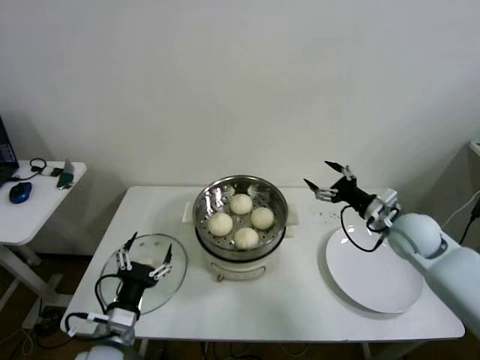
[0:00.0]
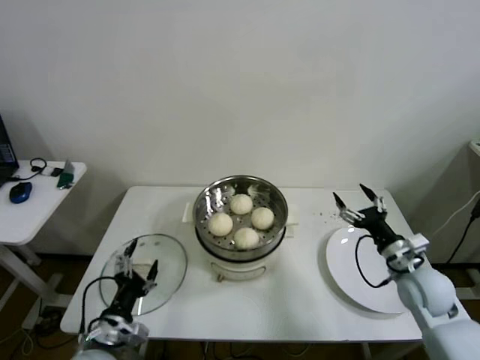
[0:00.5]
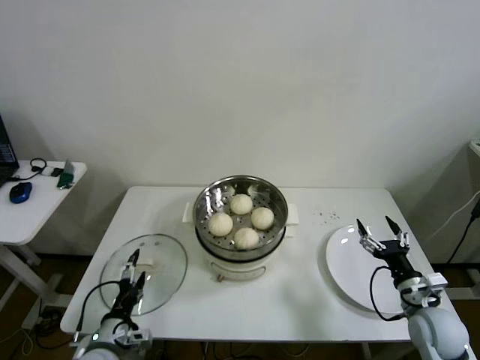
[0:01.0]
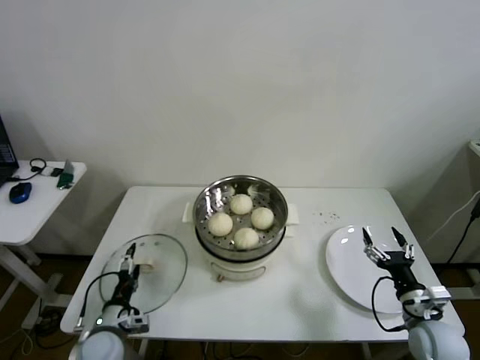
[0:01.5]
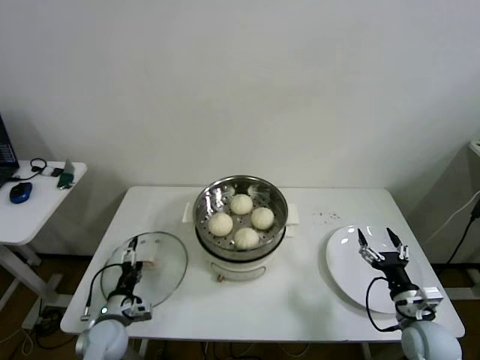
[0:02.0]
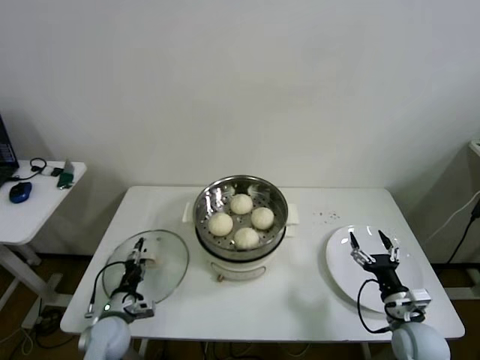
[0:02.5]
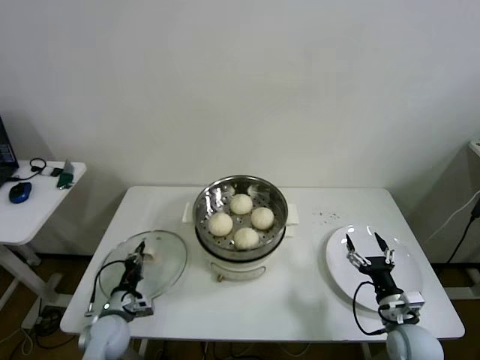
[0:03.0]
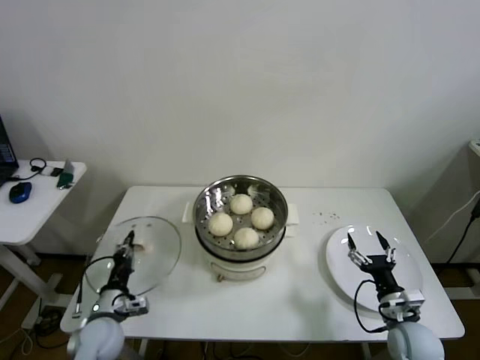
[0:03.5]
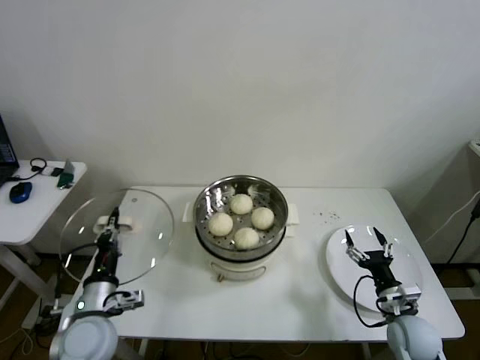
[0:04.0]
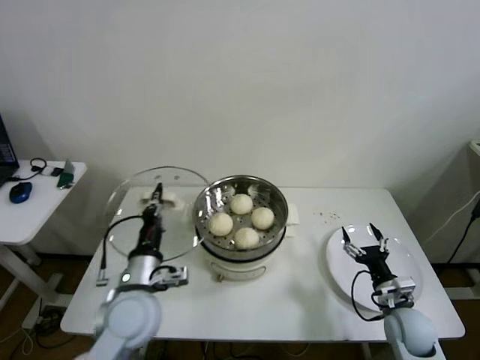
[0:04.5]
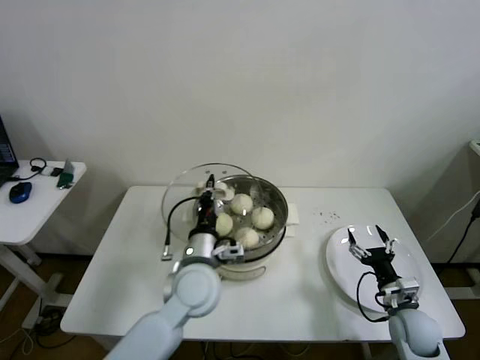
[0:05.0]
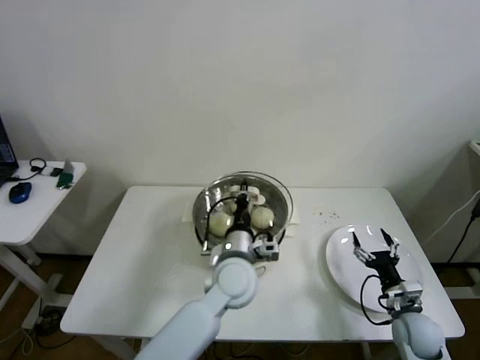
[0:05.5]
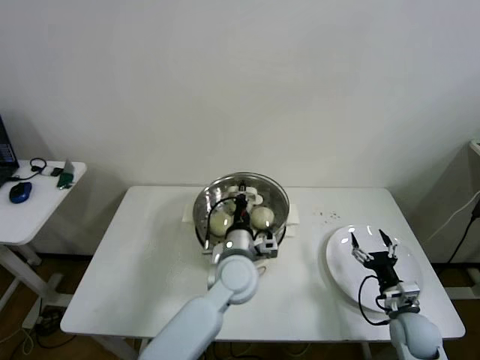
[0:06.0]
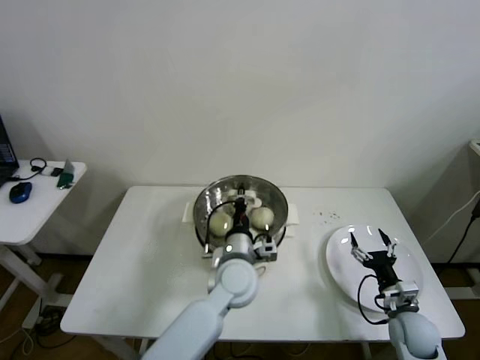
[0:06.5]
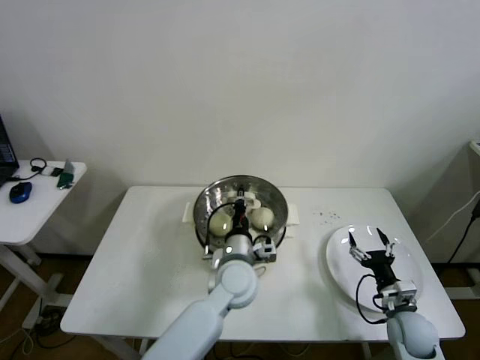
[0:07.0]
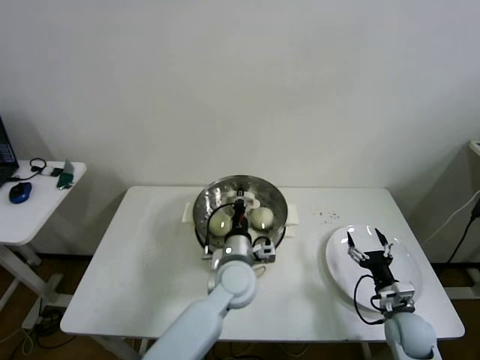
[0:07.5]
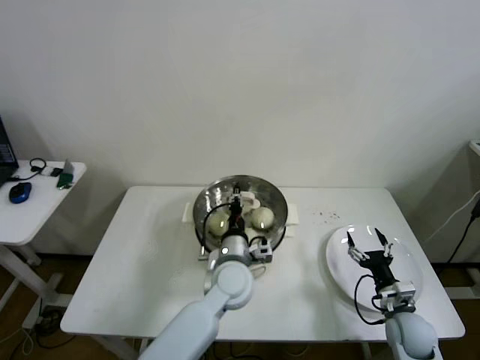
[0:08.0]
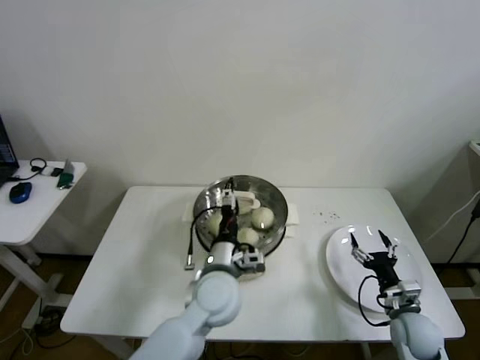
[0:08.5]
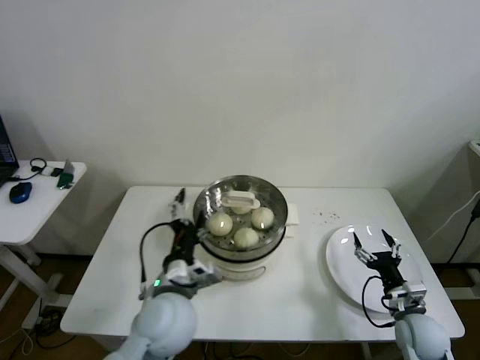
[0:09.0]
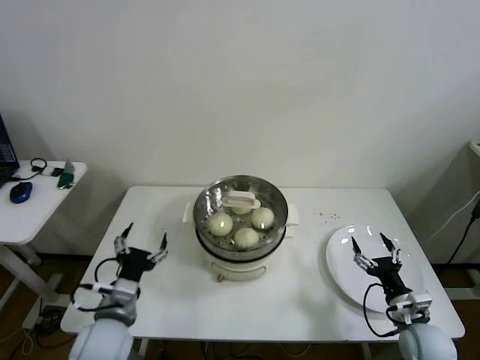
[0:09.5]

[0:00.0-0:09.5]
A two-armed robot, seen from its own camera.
Step, 0:00.0 to 0:02.5: Grasp the pot lid with left gripper.
Step, 0:03.0 to 0:07.5: Place the pot lid on the steamer with left gripper.
0:00.0 to 0:02.0: The right gripper heads backward and downward, covering some 20 cm, while the left gripper shifts approximately 15 cm downward, forward and to the left.
0:02.0 to 0:04.0: The left gripper goes about 15 cm upward, and closes up.
0:04.0 to 0:05.5: The left gripper heads to the right, covering approximately 25 cm.
0:05.5 to 0:07.5: There are only small adjustments of the grippers.
0:07.5 to 0:09.5: The left gripper travels to the left and backward by approximately 25 cm, and opens its fingers.
